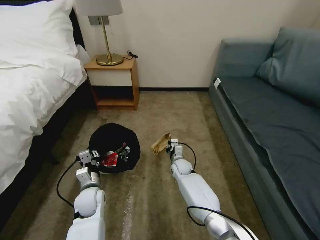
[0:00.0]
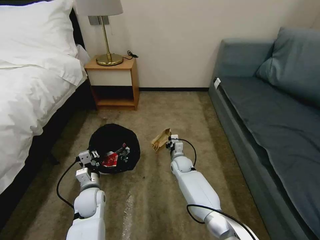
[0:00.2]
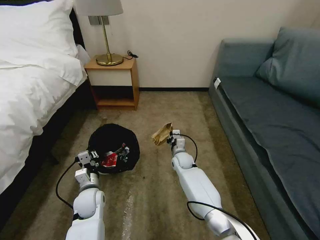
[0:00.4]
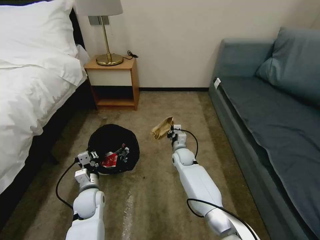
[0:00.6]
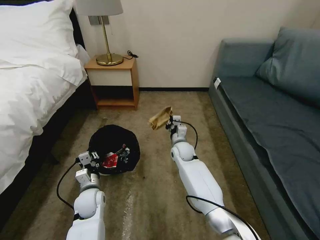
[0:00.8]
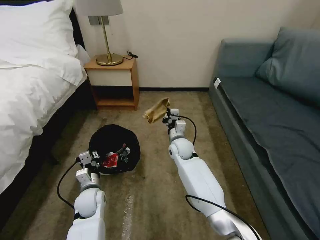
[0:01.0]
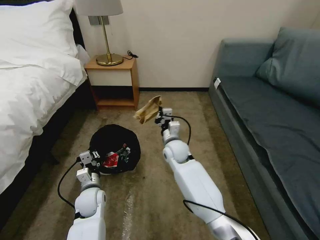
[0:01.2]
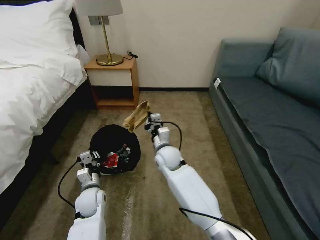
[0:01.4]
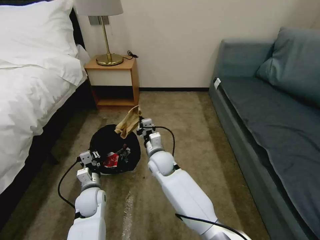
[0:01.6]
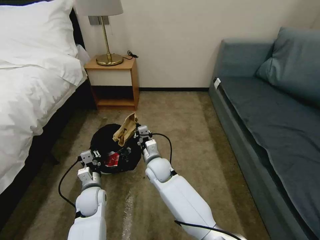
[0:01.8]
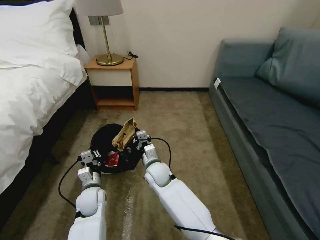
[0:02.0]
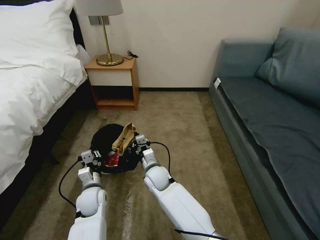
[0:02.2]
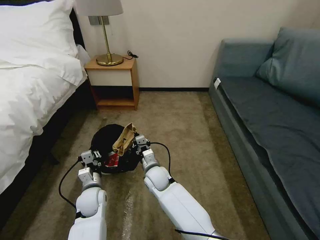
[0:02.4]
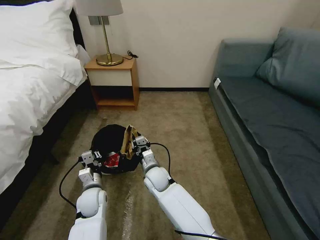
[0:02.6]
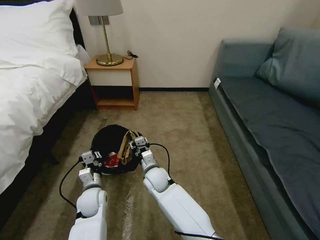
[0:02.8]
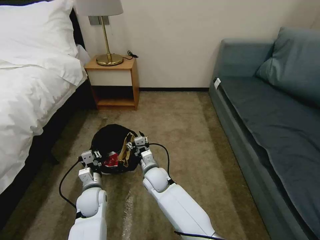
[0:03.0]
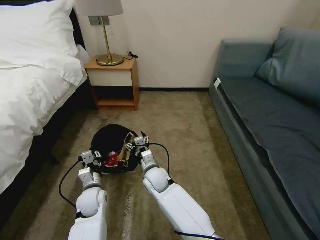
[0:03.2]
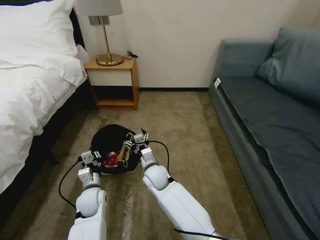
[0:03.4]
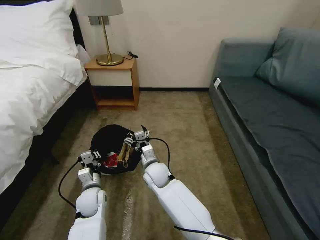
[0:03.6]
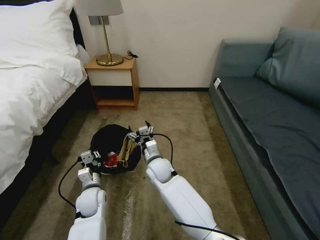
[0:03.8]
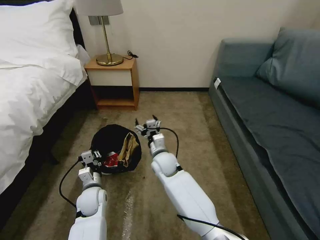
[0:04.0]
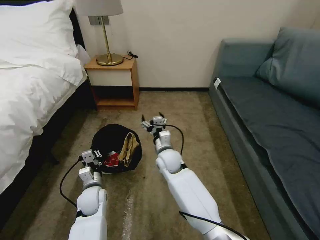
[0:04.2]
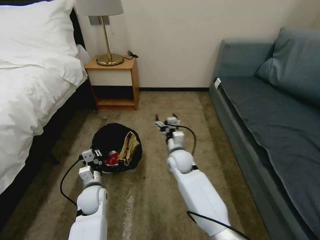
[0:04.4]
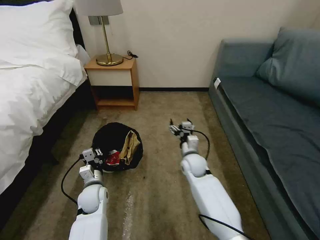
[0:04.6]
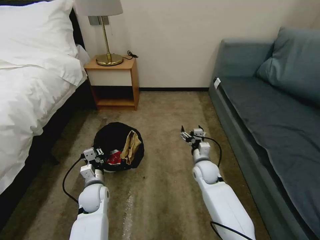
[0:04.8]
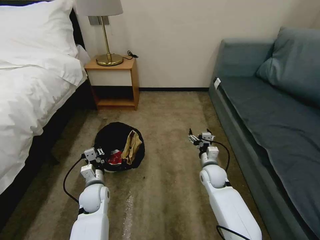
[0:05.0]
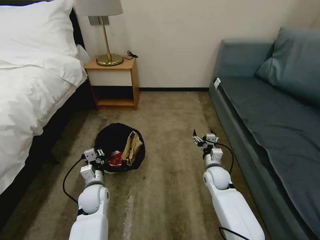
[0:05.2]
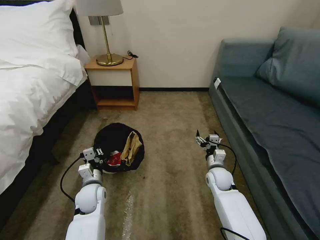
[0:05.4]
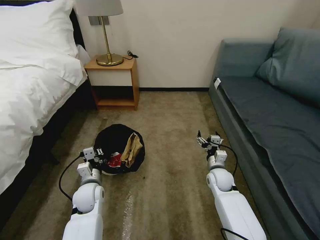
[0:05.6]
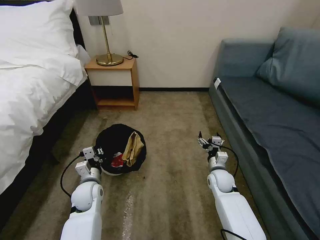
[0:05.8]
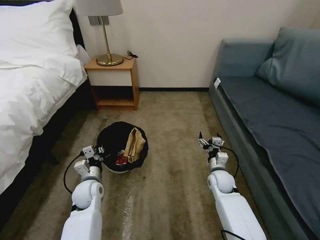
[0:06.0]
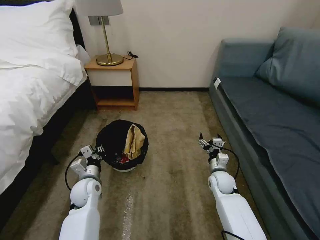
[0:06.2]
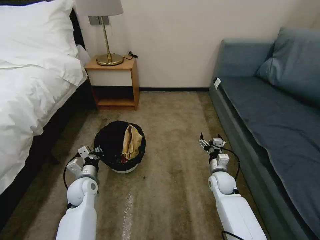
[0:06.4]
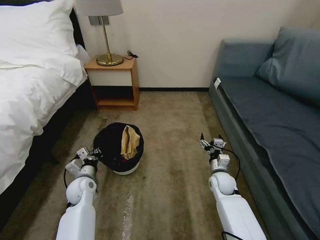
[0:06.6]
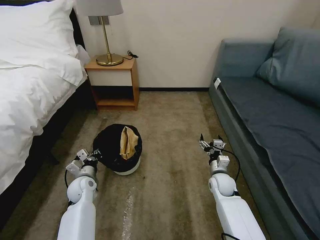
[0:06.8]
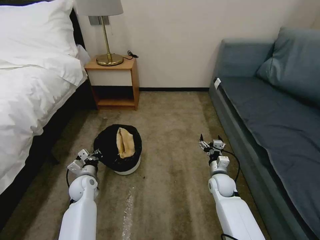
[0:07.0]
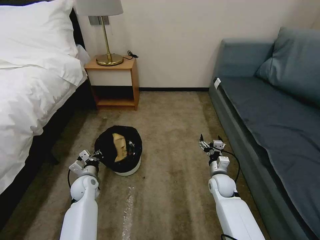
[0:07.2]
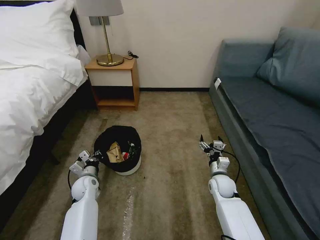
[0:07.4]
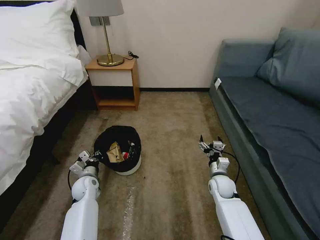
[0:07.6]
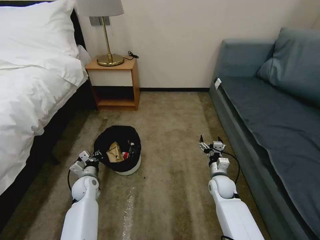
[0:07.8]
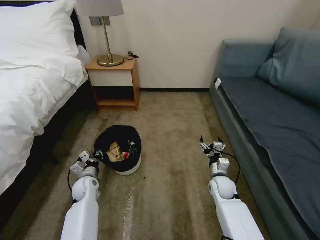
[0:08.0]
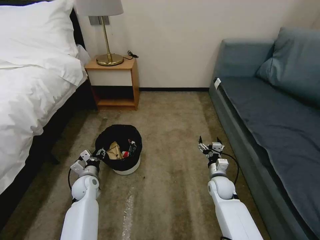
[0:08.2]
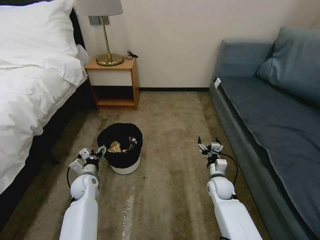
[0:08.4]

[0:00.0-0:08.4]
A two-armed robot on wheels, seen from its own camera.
Task of the whole recording: Pick up the trash bin, then pick up the garbage on the floor and place it into the trash bin.
0:00.0 to 0:01.4: The right gripper is displaced upward and to the left by about 15 cm.
0:01.4 to 0:02.8: The right gripper is displaced downward and backward by approximately 10 cm, and opens up.
0:02.8 to 0:04.2: The right gripper is displaced upward, to the right and forward by approximately 10 cm, and opens its fingers.
0:04.2 to 0:05.6: The right gripper is displaced to the right by approximately 20 cm.
0:05.6 to 0:07.0: The left gripper moves to the left, about 5 cm.
0:07.0 to 0:08.4: The left gripper opens.

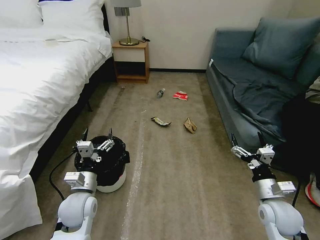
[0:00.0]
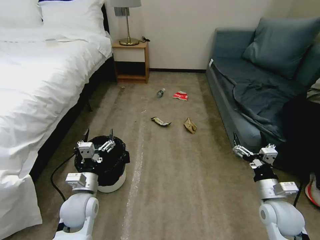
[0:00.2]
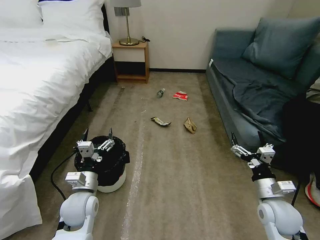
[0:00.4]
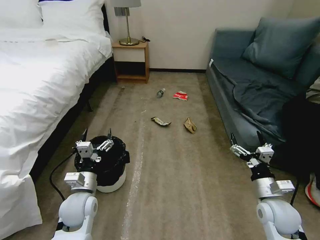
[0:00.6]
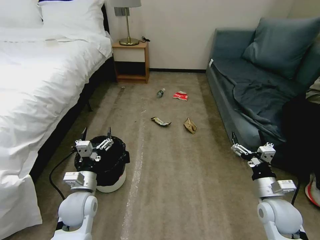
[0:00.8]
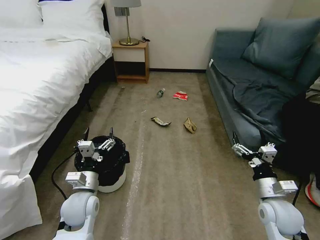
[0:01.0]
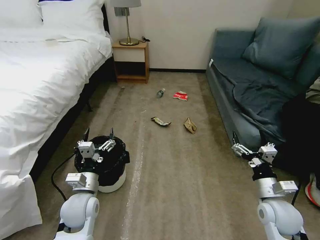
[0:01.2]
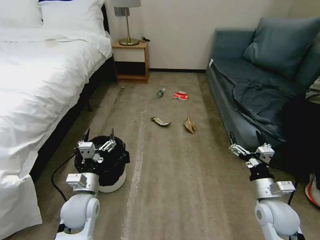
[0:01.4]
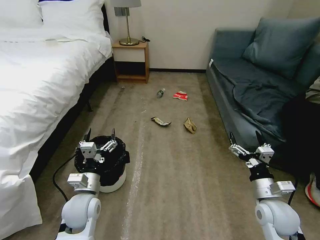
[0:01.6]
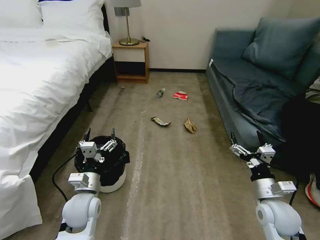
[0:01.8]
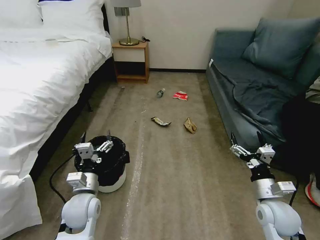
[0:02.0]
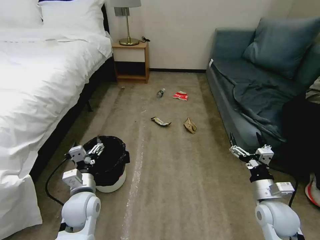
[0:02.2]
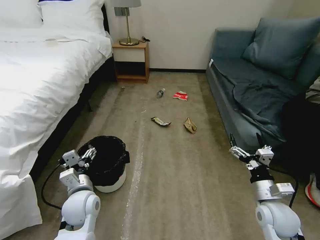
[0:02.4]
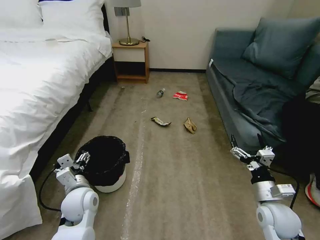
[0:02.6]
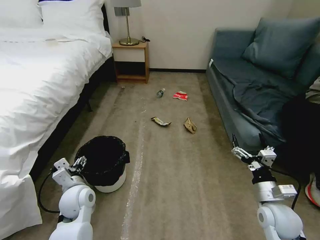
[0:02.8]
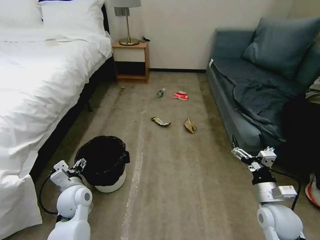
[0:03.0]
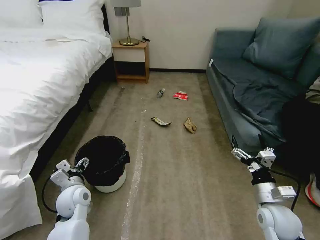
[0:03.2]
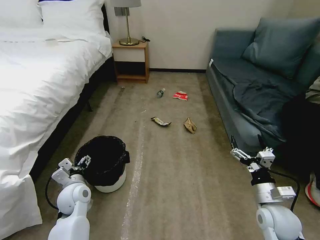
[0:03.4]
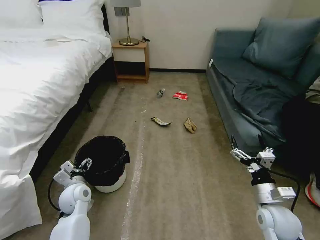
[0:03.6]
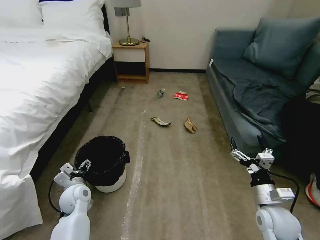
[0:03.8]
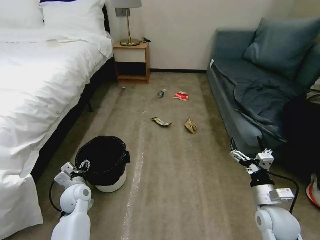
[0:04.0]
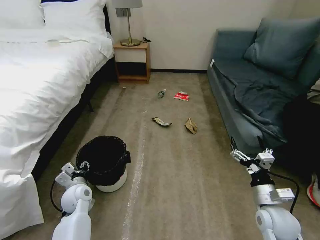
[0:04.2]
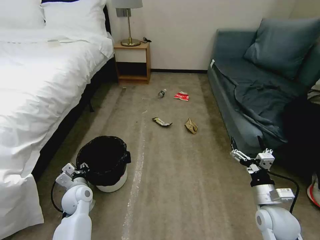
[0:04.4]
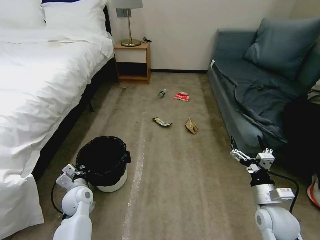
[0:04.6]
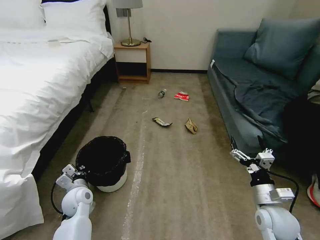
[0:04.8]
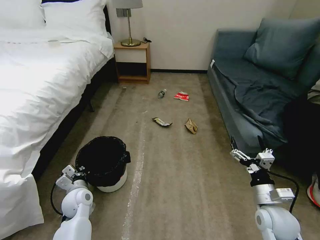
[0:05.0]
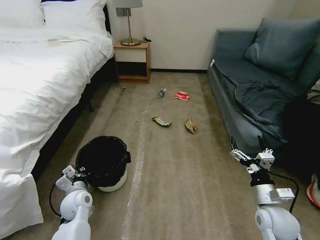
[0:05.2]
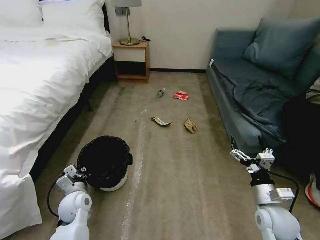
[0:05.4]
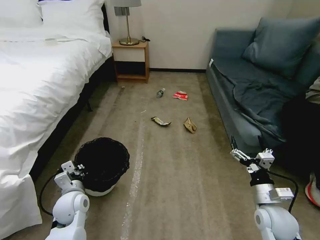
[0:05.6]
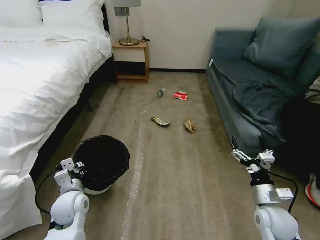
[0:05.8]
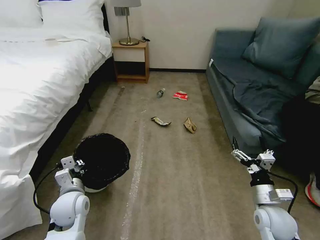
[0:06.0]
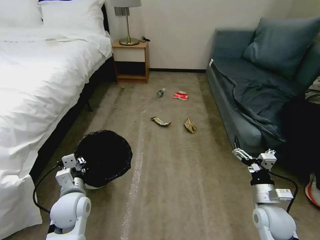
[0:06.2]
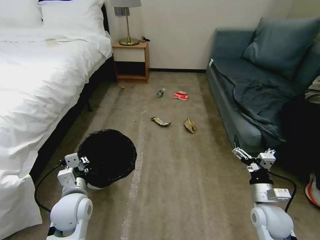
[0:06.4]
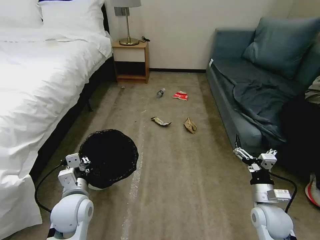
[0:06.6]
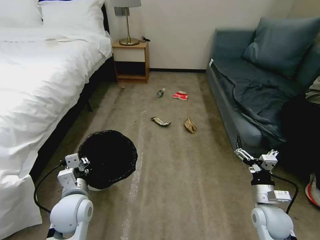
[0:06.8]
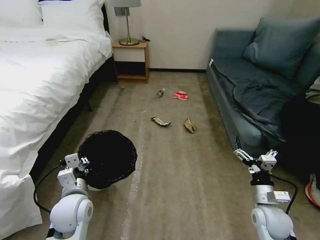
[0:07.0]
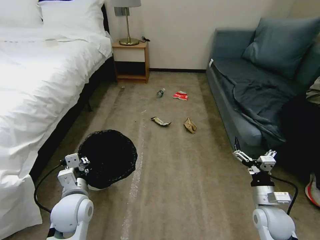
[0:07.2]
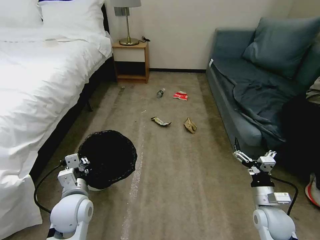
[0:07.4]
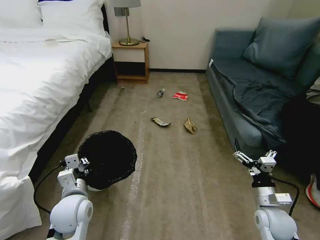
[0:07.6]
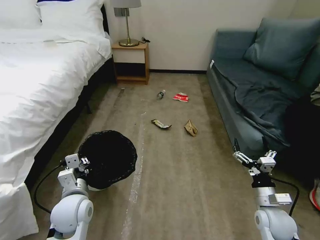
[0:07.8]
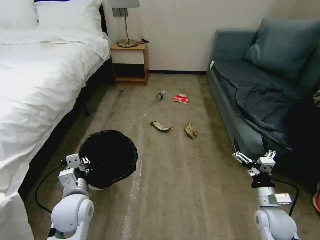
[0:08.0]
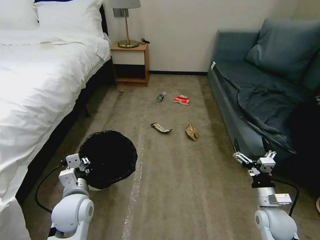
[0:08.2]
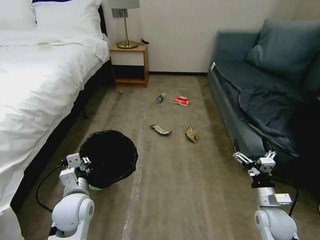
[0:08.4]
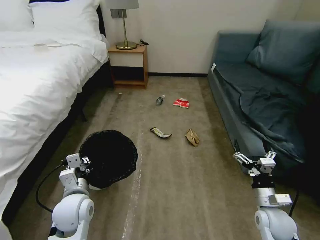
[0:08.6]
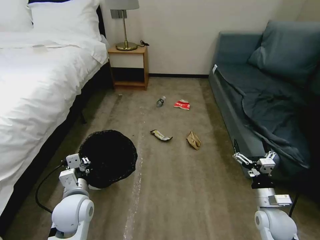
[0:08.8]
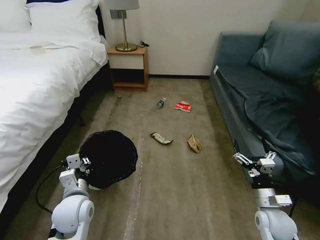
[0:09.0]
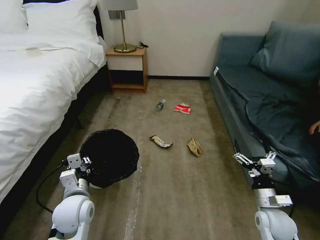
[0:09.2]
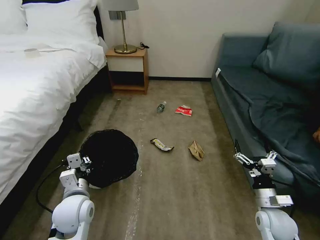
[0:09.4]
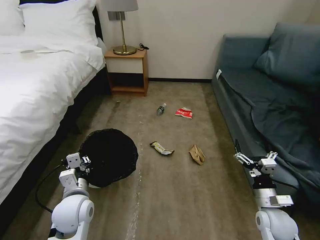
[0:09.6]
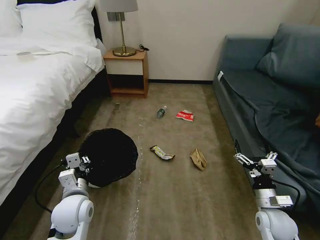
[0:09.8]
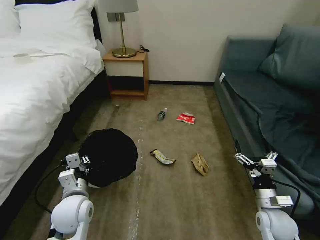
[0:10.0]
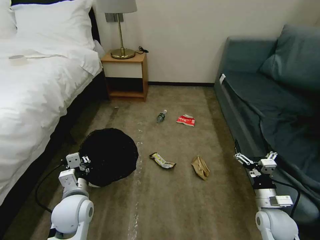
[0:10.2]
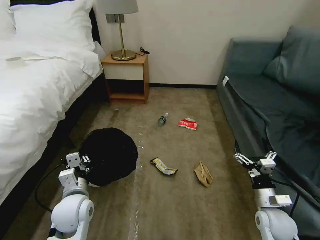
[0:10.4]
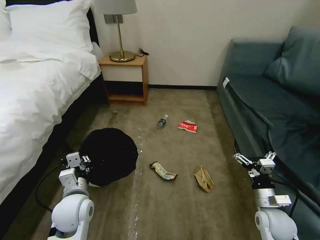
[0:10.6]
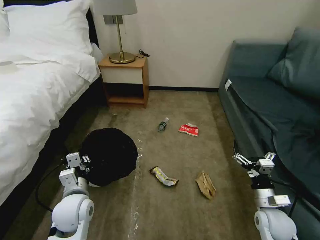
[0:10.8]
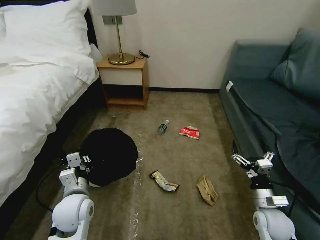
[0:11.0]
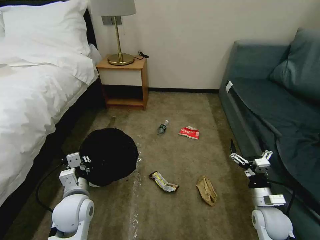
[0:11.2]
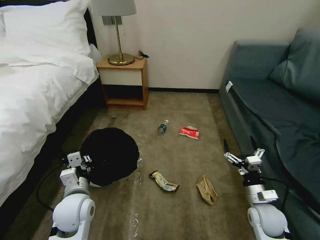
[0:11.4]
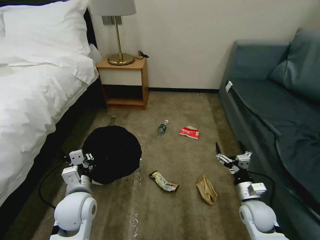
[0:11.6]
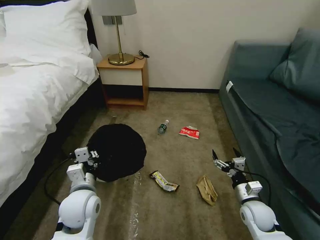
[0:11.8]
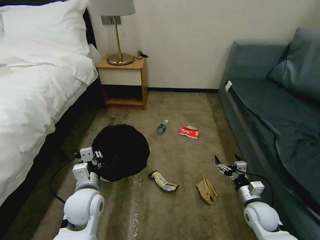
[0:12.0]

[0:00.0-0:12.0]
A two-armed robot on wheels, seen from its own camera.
Task of the whole recording: Pick up the trash bin, then pick up the garbage on the floor and place it into the trash bin.
0:03.0 to 0:04.4: The left gripper shifts some 5 cm downward, and closes.
0:04.4 to 0:06.0: The left gripper heads upward and backward, covering some 10 cm.
0:06.0 to 0:07.6: The grippers move only a little.
0:10.4 to 0:12.0: The right gripper shifts by about 5 cm.

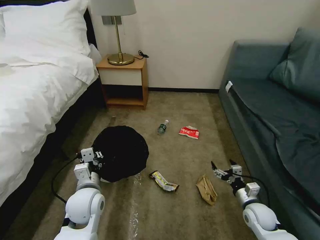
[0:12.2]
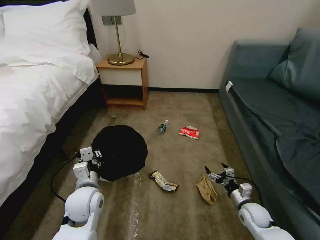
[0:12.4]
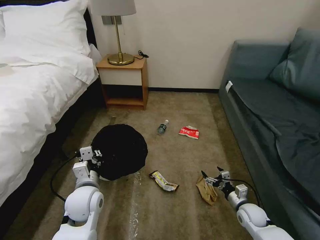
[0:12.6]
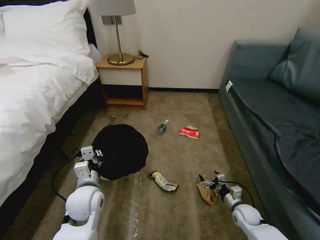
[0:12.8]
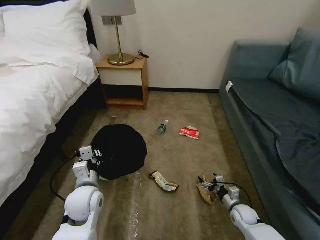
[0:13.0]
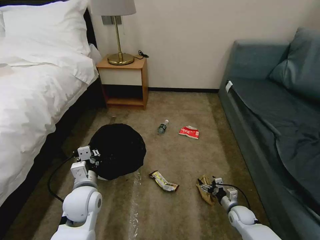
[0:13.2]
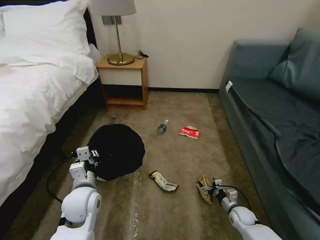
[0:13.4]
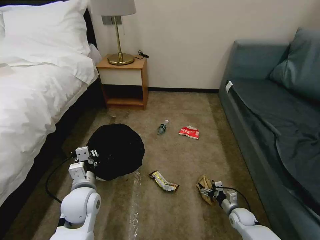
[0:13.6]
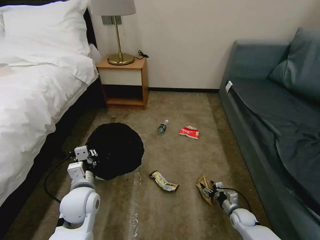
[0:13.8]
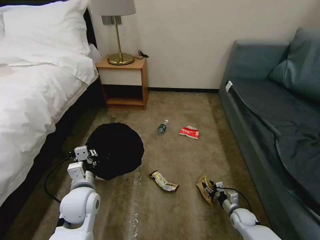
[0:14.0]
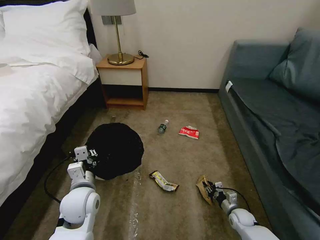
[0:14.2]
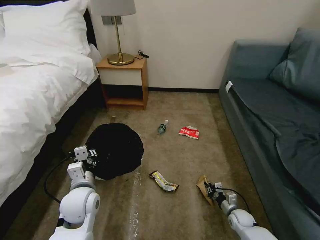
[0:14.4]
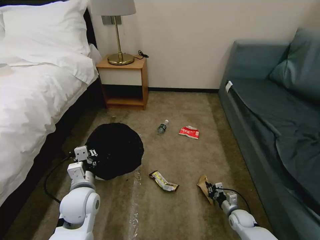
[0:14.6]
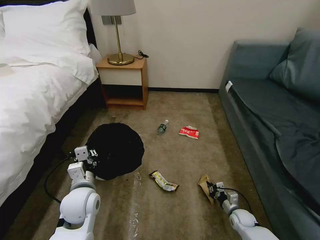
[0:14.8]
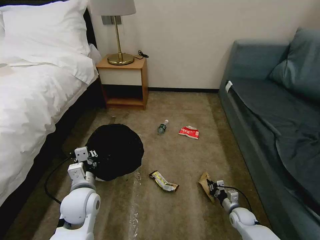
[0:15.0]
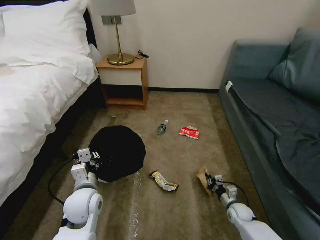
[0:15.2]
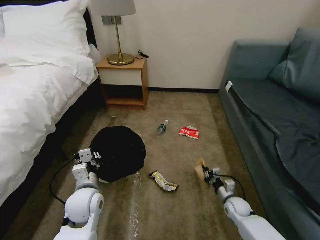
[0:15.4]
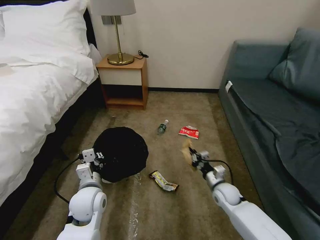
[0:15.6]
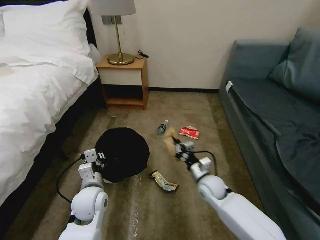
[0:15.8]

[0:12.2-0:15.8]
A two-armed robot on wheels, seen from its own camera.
Task of the whole recording: Pick up the trash bin, then pick up the garbage on the floor and place it into the trash bin.
0:12.2 to 0:14.0: The right gripper is displaced downward by roughly 15 cm, and closes its fingers.
0:14.0 to 0:15.8: The right gripper moves upward and to the left, some 25 cm, and closes.
